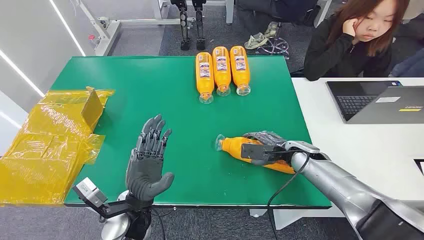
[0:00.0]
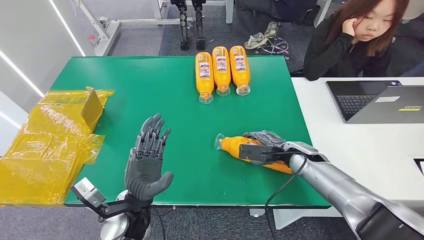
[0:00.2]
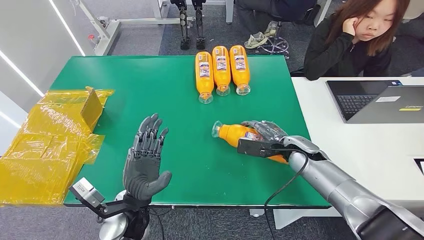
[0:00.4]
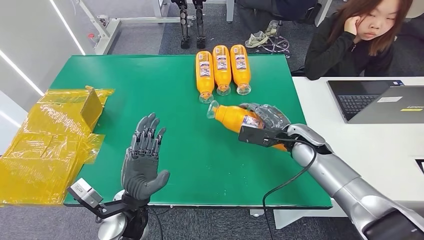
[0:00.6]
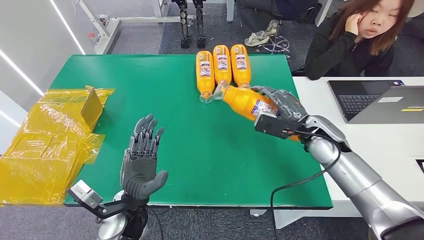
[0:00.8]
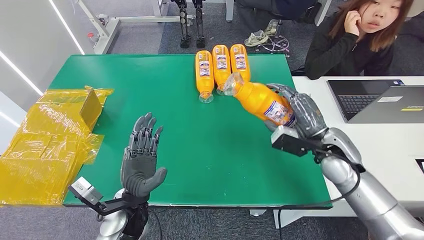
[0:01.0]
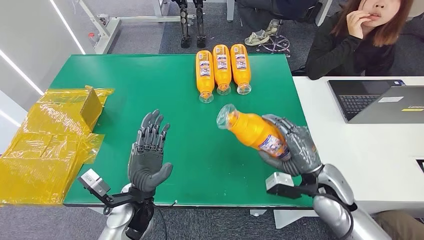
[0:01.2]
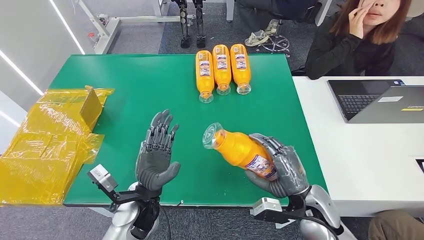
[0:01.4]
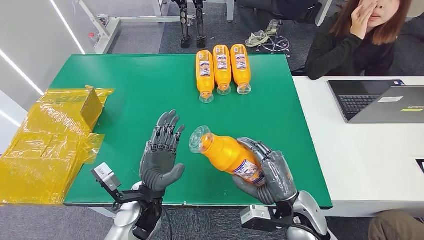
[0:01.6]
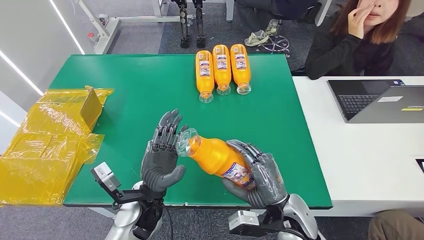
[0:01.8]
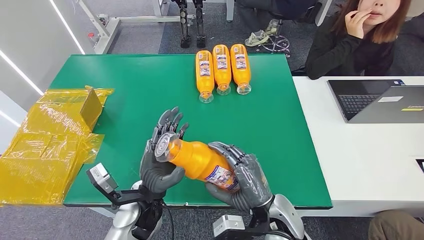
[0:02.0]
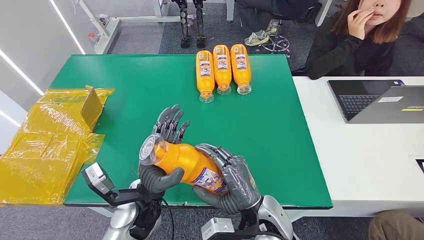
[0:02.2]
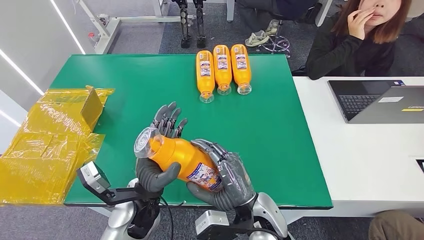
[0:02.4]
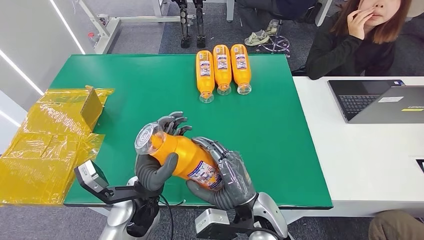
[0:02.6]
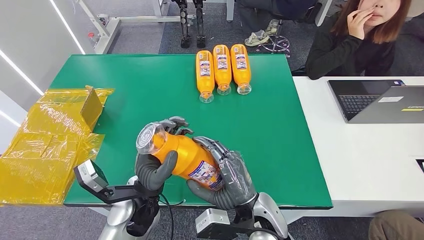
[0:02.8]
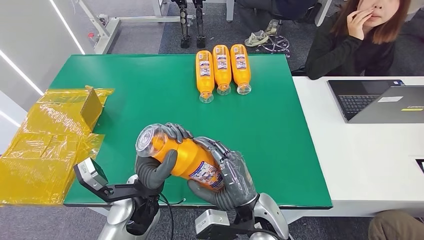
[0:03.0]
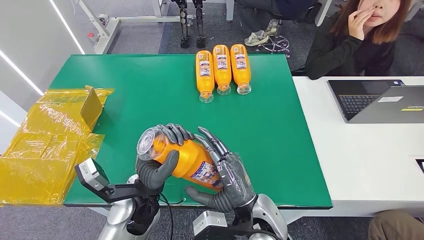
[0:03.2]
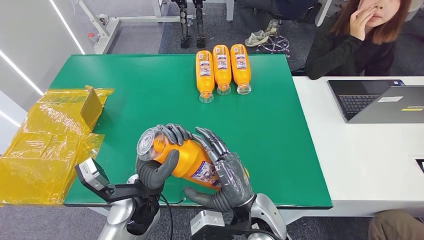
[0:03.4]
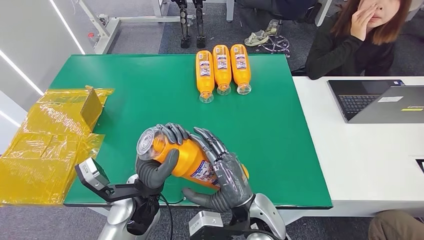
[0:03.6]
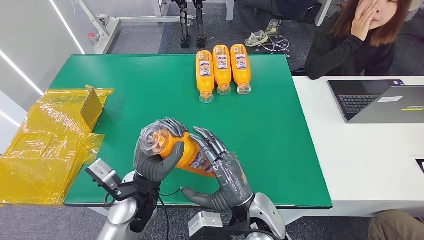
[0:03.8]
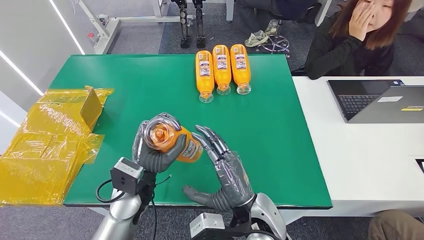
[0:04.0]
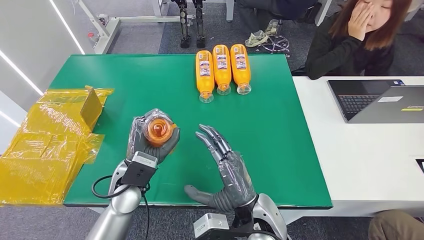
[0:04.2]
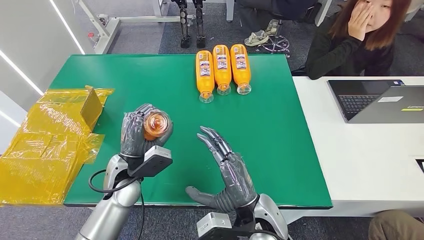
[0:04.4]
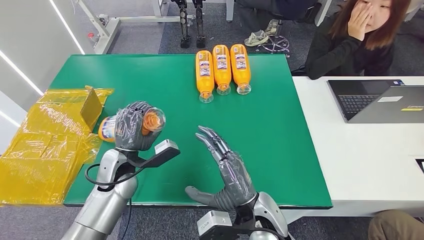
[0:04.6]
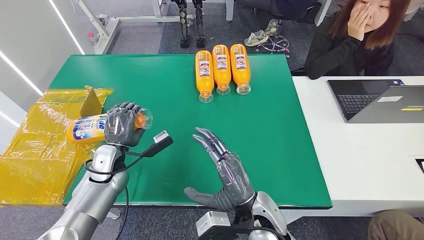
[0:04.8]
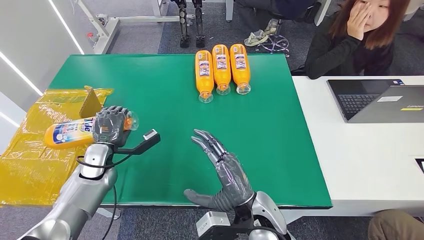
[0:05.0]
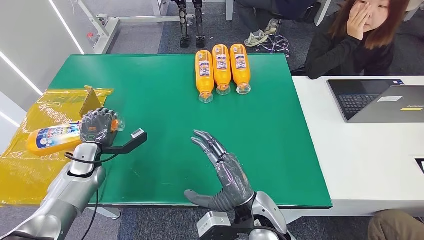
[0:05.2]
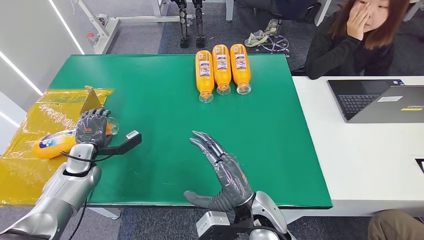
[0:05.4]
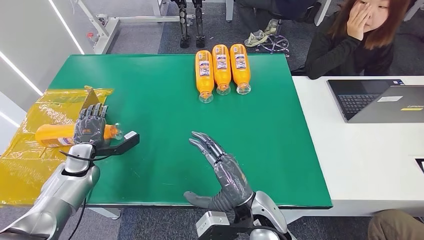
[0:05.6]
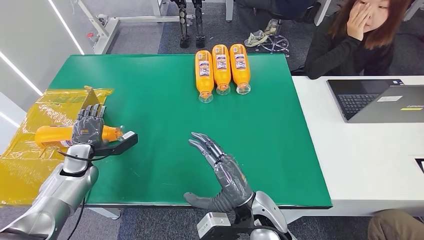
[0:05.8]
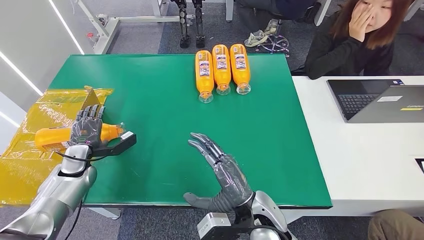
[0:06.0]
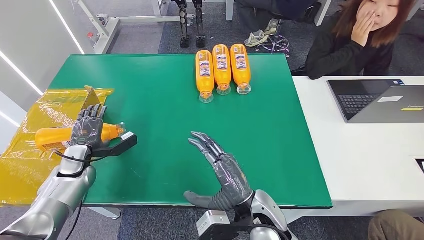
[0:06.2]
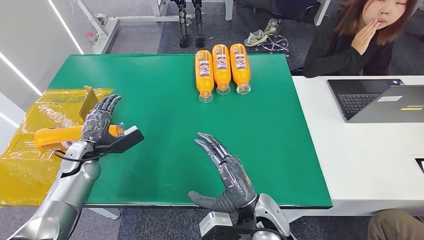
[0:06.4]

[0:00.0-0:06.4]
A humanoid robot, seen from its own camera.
Step, 0:00.0 to 0:02.0: Pick up the bottle from the table.
Step, 0:02.2 to 0:06.4: Turn the bottle to the front side.
0:01.6 to 0:03.2: The right hand heads to the left, covering some 10 cm.
0:03.2 to 0:04.8: The left hand is displaced to the left and forward by approximately 20 cm.
0:04.8 to 0:06.4: The left hand heads to the left, covering roughly 10 cm.

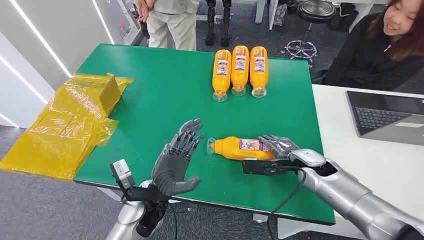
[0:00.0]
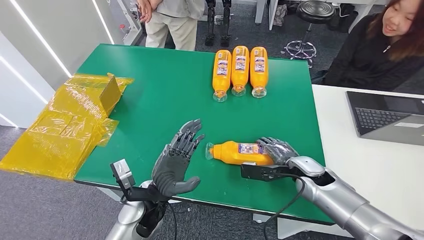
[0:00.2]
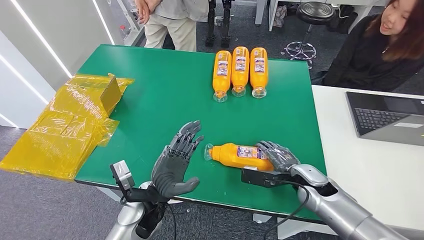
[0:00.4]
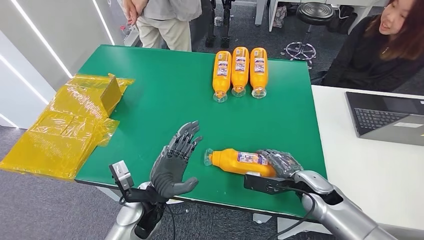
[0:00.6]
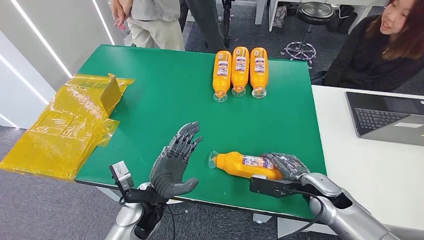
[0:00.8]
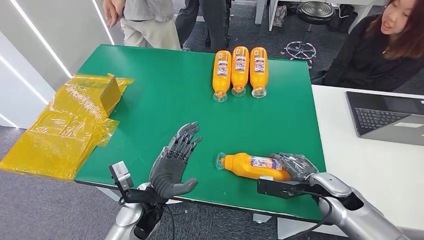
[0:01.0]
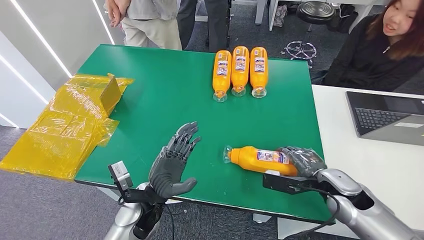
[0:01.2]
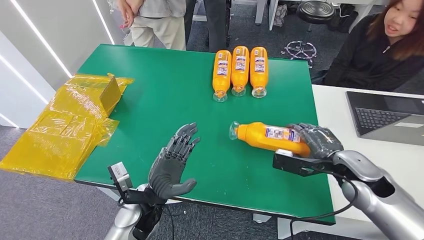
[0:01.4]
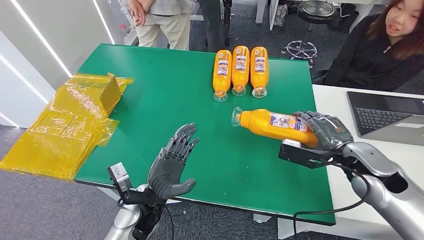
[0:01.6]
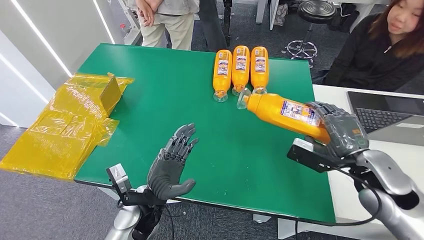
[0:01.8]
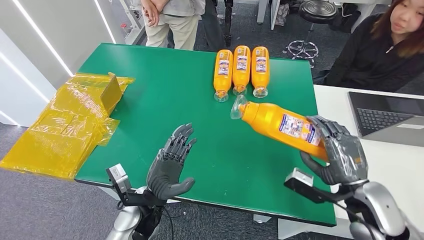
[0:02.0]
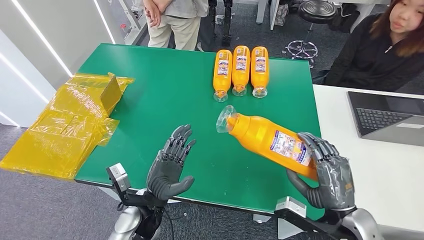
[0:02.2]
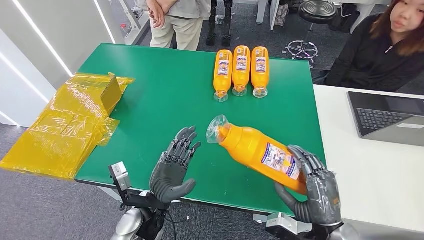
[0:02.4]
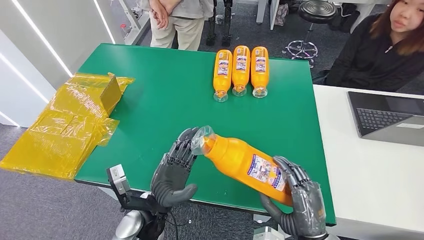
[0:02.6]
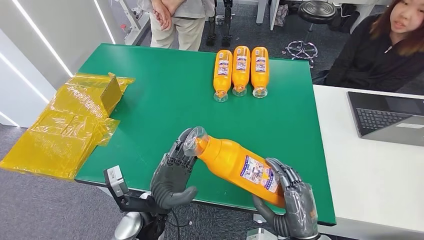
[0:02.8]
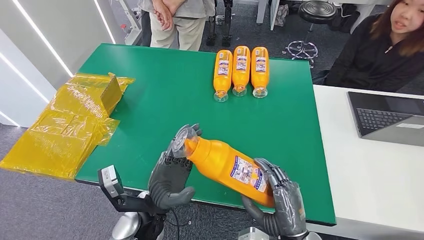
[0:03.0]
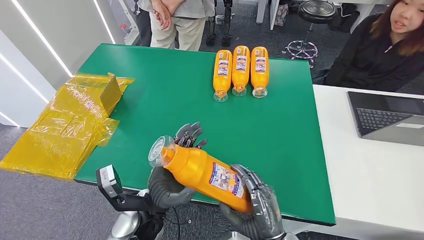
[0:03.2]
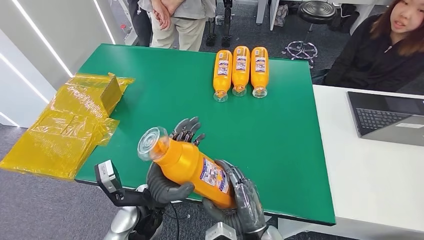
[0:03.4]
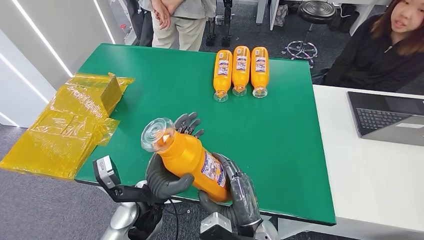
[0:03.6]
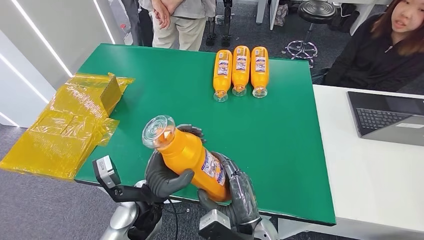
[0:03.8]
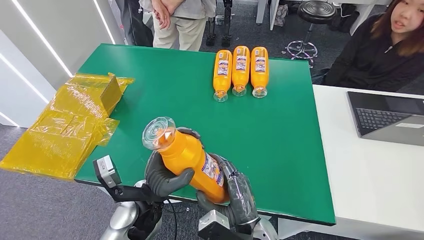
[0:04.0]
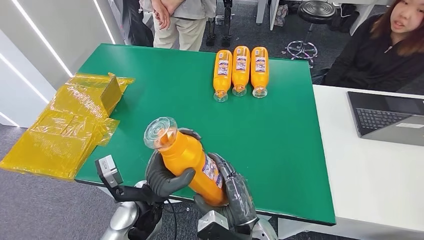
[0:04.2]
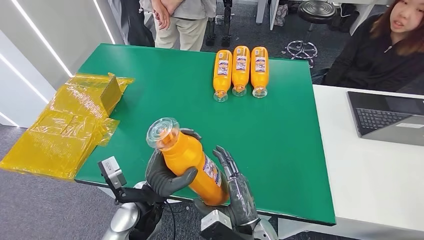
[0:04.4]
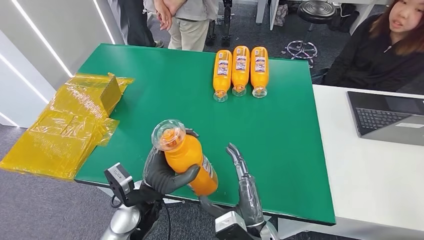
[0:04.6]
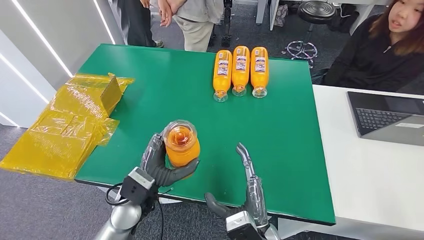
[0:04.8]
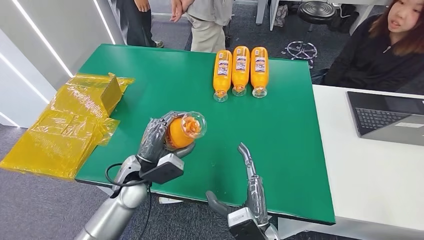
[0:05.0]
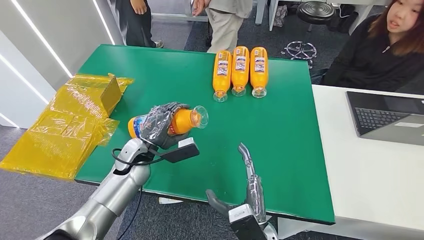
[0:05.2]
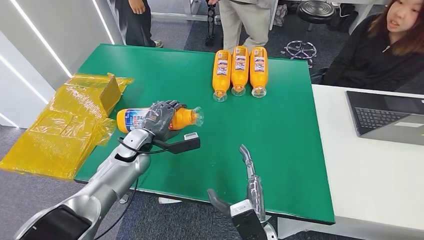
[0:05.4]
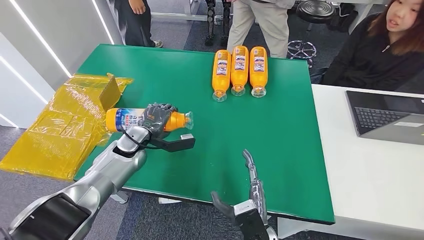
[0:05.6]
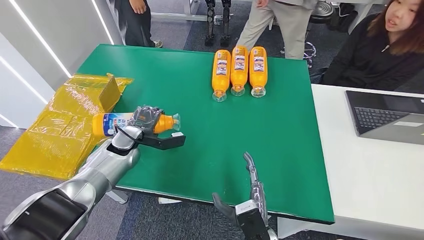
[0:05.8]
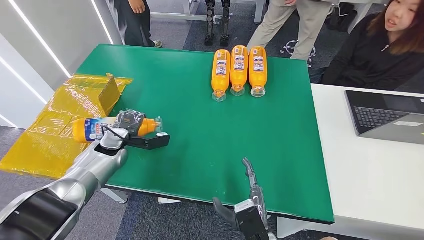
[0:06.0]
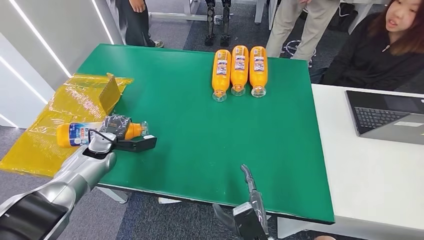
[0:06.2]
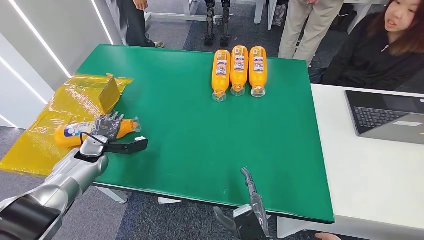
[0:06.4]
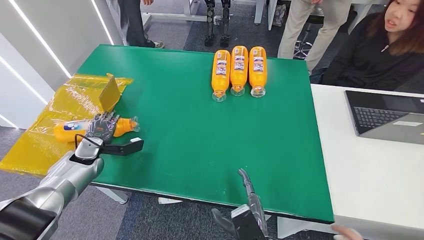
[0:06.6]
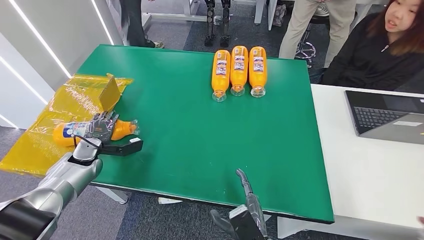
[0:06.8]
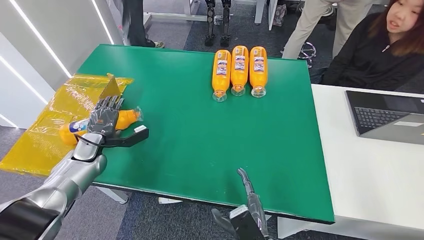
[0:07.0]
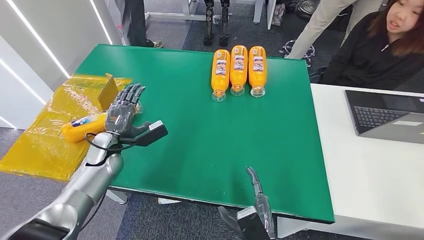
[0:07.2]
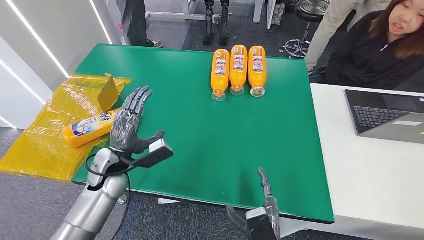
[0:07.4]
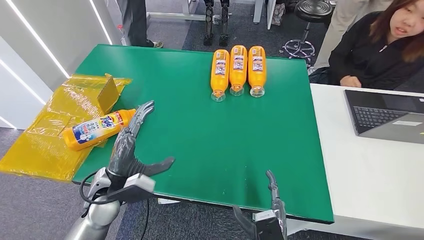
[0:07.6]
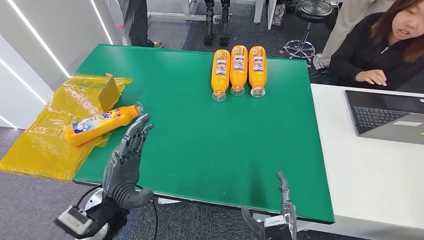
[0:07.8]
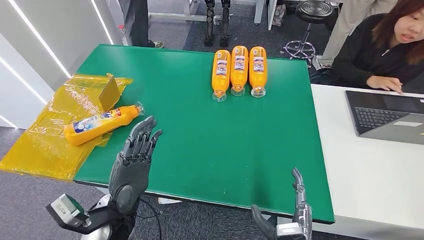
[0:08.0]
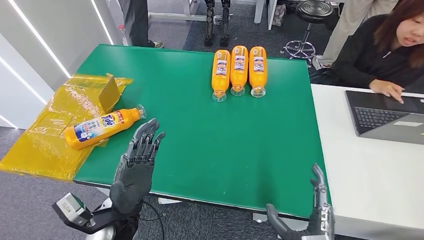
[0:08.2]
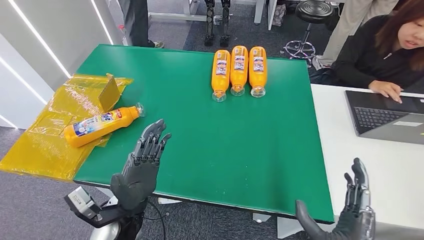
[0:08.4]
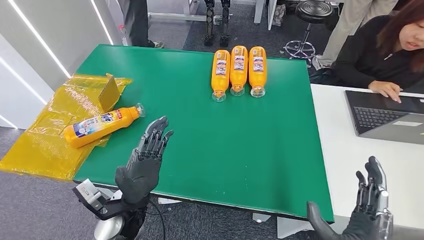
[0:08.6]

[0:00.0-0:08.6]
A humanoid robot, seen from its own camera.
Step, 0:00.0 to 0:02.6: Pick up the bottle from the table.
Step, 0:02.8 to 0:08.4: Turn the bottle to the front side.
0:02.8 to 0:04.4: The right hand travels to the left by roughly 10 cm.
0:05.8 to 0:07.2: The left hand moves roughly 15 cm to the left and comes back.
